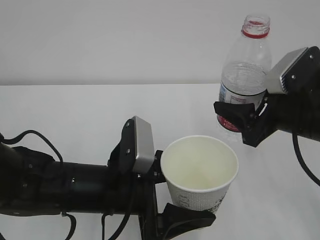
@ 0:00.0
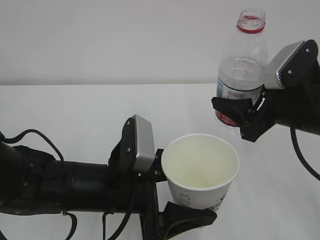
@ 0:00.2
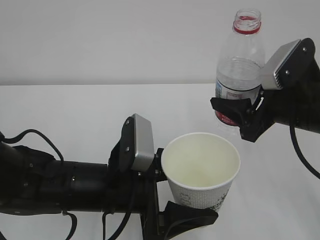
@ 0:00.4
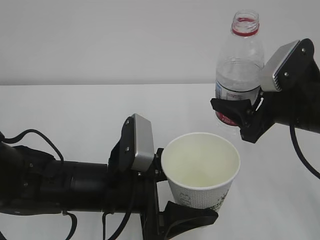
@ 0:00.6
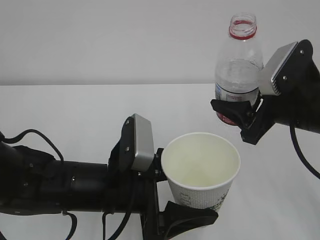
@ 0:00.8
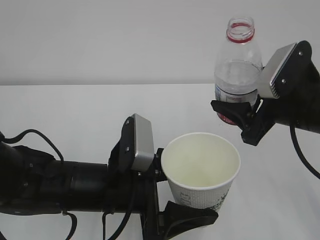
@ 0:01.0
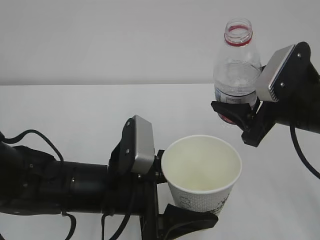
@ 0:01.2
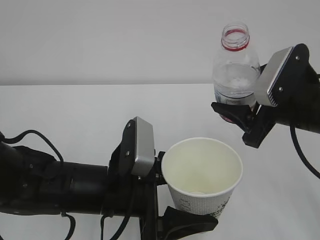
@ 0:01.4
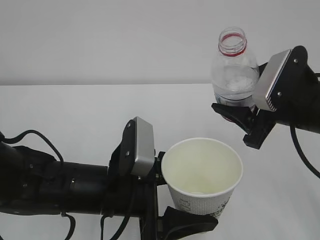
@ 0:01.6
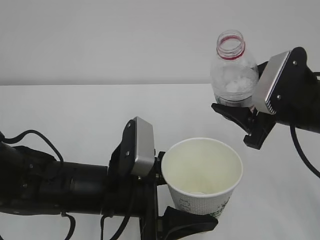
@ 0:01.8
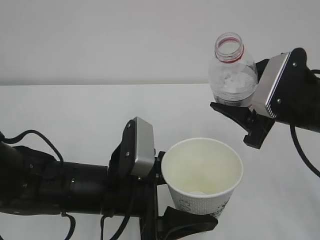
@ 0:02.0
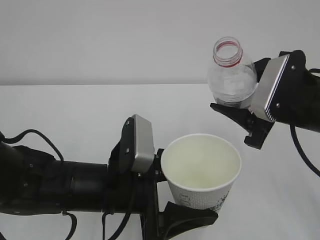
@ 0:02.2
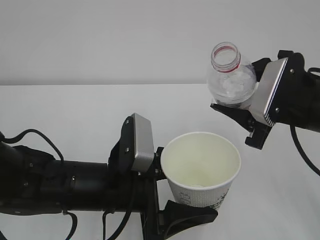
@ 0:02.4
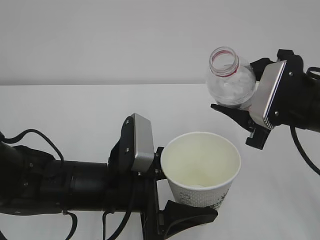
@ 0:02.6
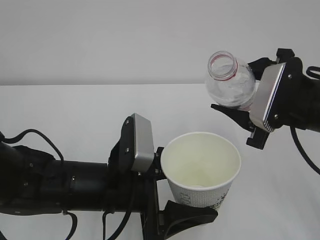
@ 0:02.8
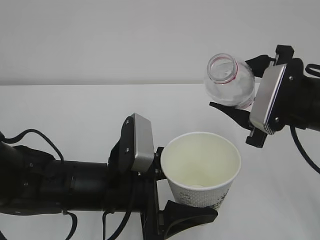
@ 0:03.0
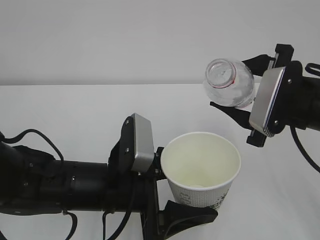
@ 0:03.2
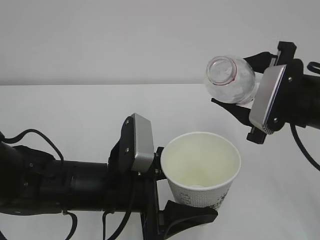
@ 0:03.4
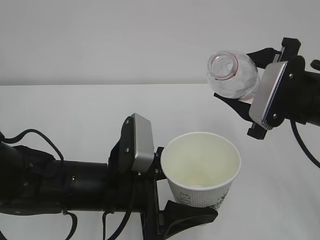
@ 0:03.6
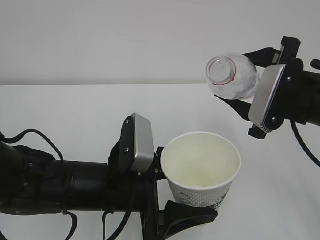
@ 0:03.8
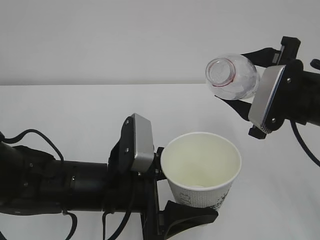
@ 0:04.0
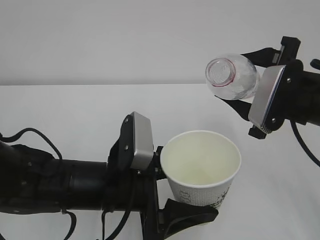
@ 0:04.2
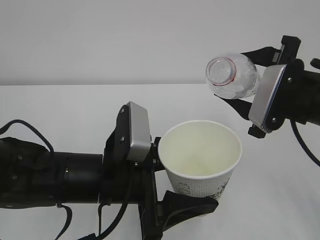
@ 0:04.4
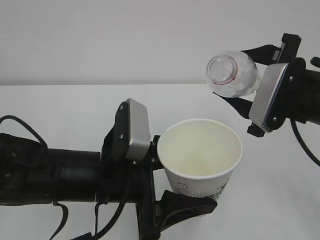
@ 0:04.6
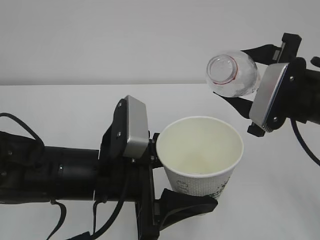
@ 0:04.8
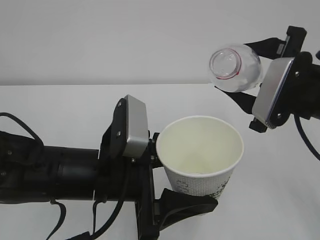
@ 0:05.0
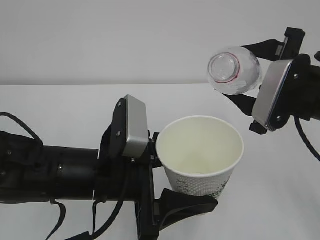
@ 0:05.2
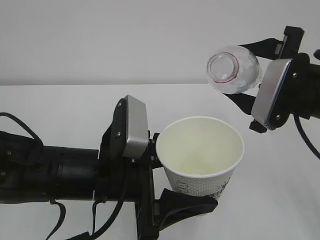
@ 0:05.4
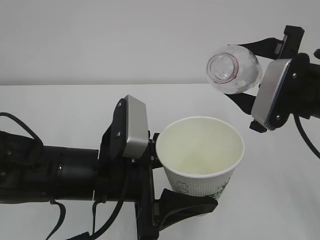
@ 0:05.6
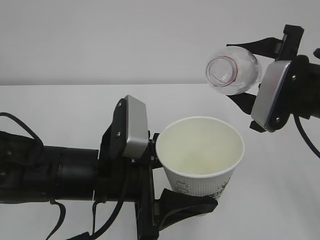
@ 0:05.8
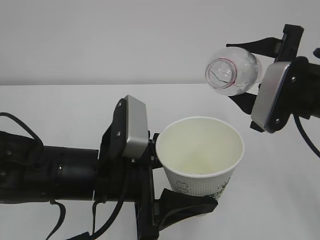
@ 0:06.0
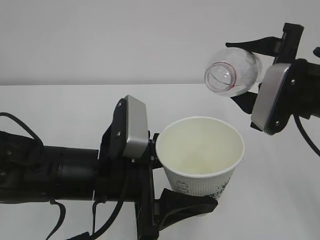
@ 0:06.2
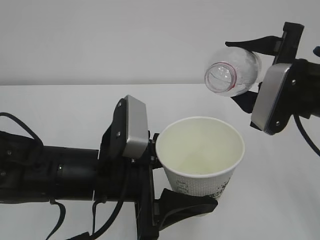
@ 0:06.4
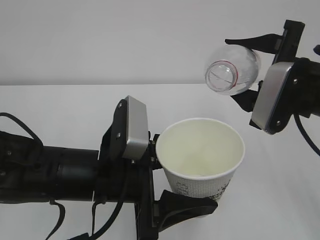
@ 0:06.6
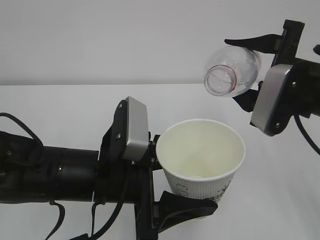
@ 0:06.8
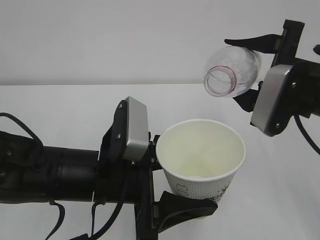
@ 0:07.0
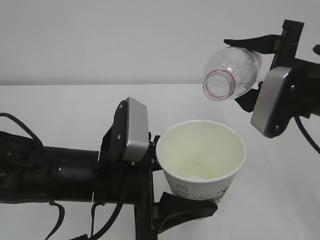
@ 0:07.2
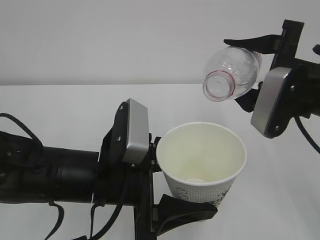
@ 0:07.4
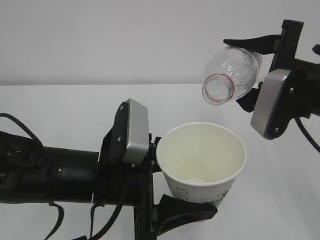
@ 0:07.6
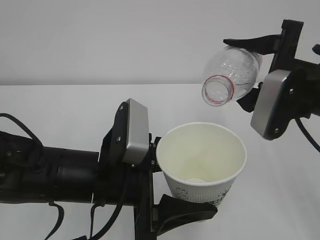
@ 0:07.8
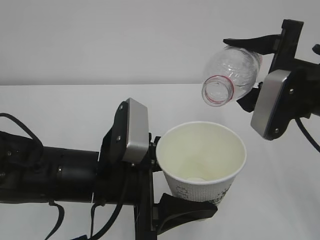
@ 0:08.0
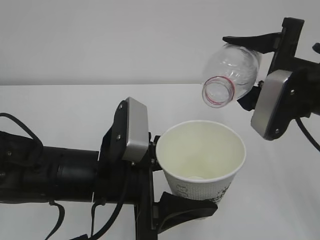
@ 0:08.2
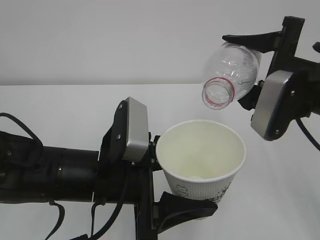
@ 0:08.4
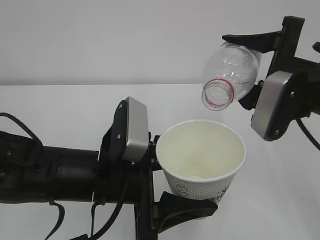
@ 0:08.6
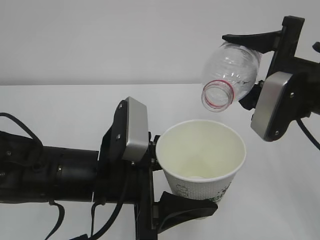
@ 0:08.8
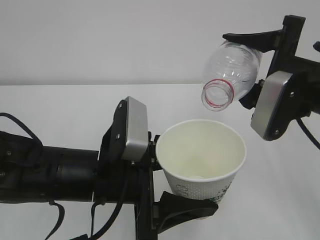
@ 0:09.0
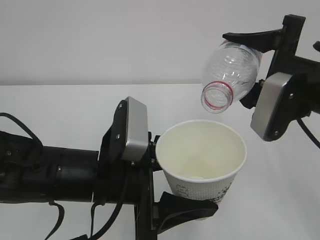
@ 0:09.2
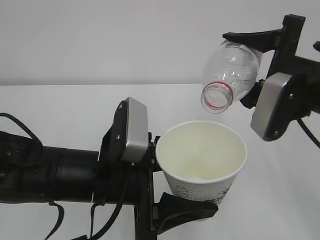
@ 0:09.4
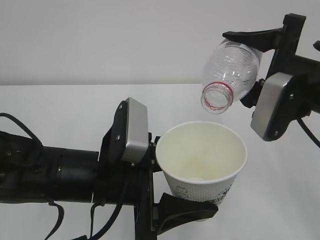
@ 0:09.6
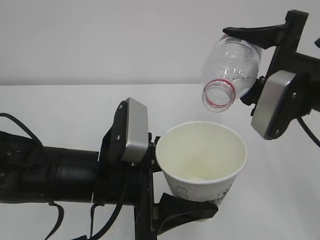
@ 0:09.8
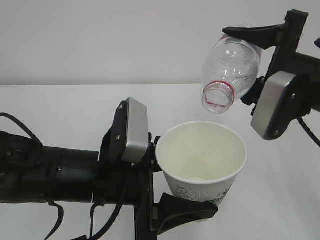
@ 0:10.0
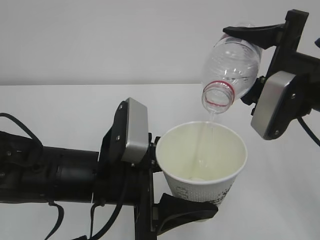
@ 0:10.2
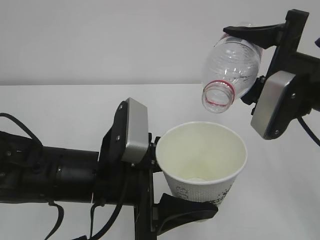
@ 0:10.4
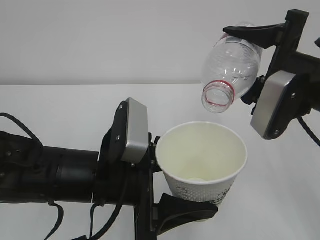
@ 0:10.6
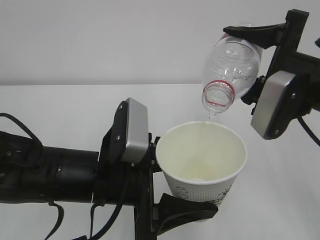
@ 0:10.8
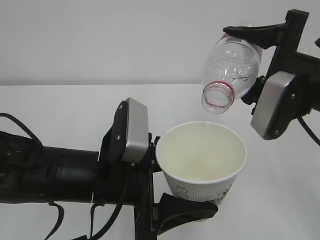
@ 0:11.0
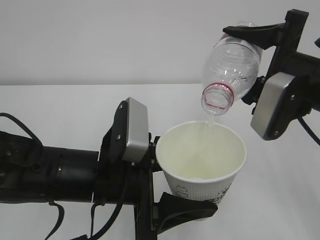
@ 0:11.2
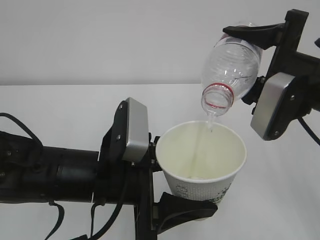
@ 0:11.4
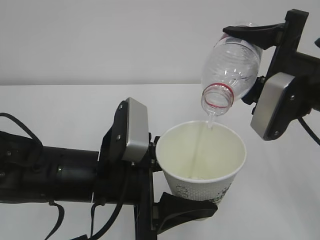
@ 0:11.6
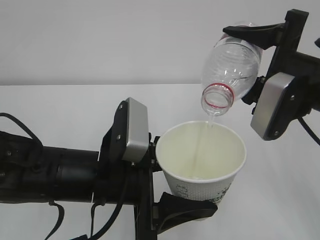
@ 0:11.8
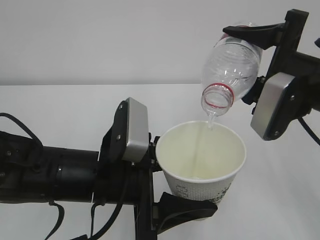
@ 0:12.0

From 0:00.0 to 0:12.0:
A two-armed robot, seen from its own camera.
From 0:03.0 to 0:06.0: There are only small adjustments of the grippers.
From 0:06.0 to 0:09.0: There are only small adjustments of the grippers.
From 0:09.0 to 0:10.4: Neither gripper changes place.
From 0:10.4 to 0:12.0: Both grippers stay put.

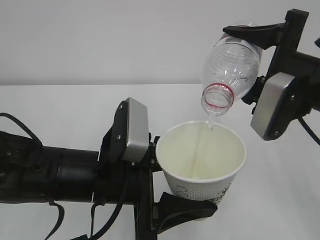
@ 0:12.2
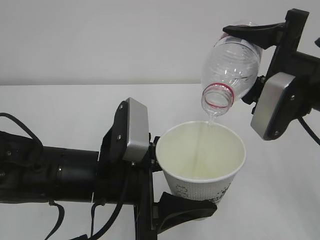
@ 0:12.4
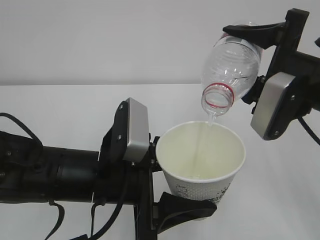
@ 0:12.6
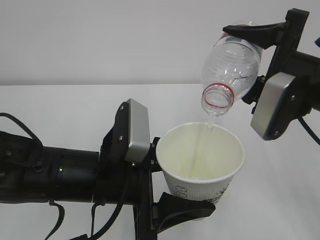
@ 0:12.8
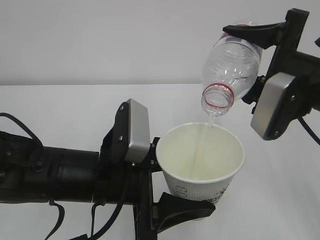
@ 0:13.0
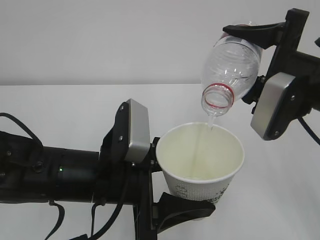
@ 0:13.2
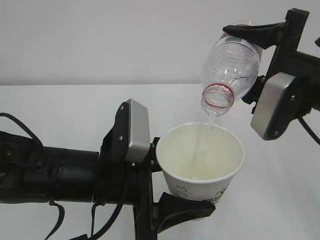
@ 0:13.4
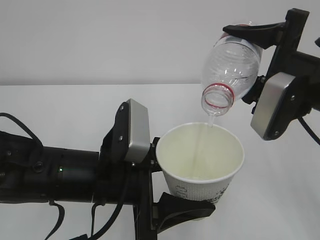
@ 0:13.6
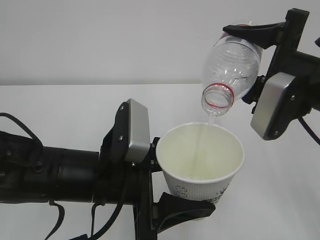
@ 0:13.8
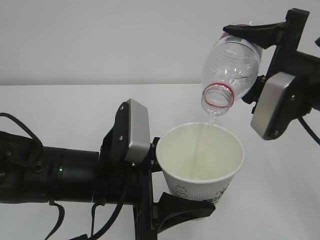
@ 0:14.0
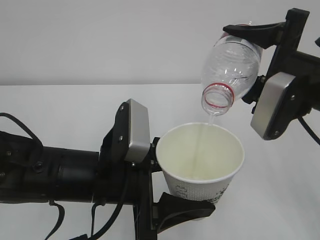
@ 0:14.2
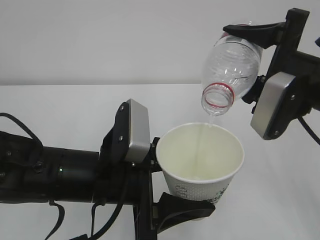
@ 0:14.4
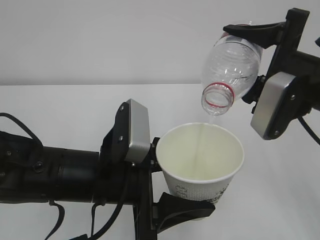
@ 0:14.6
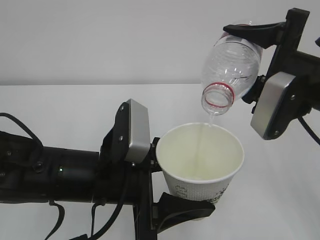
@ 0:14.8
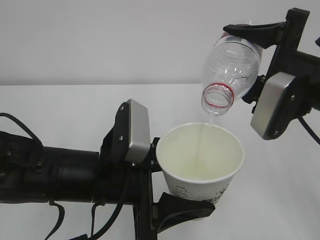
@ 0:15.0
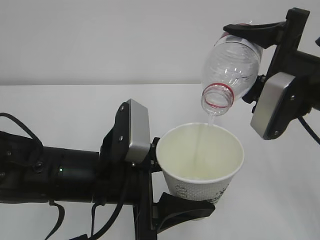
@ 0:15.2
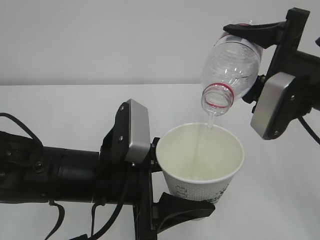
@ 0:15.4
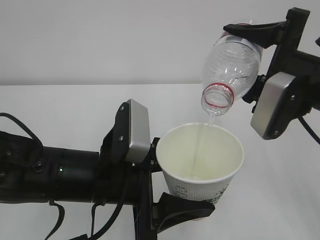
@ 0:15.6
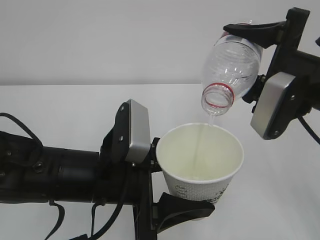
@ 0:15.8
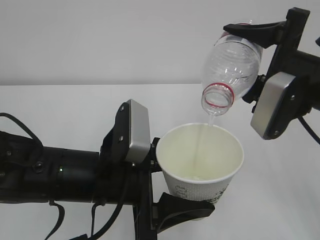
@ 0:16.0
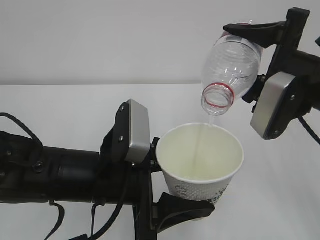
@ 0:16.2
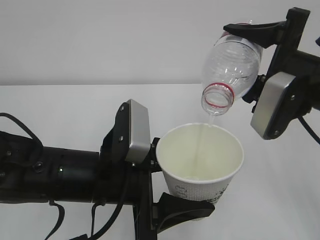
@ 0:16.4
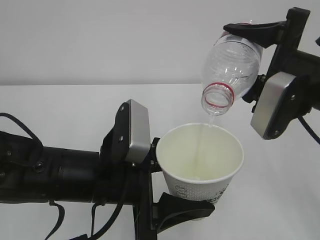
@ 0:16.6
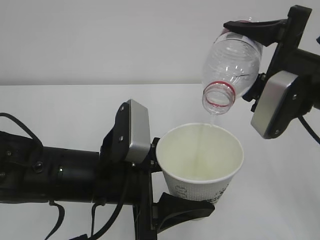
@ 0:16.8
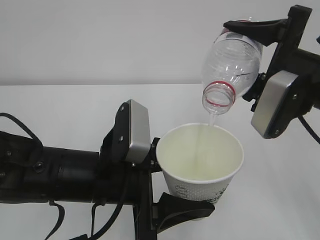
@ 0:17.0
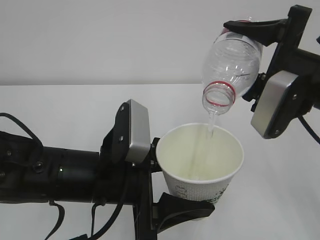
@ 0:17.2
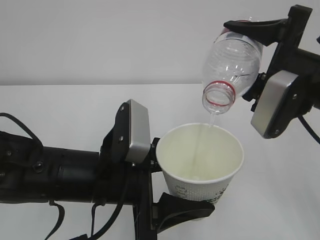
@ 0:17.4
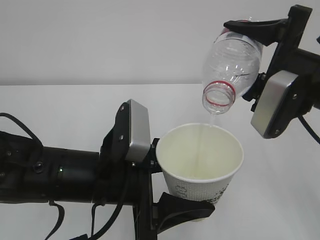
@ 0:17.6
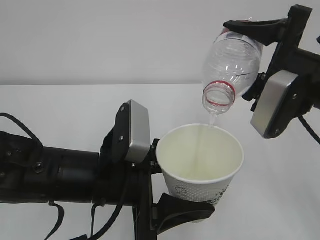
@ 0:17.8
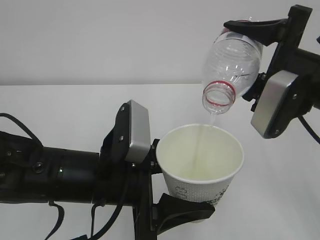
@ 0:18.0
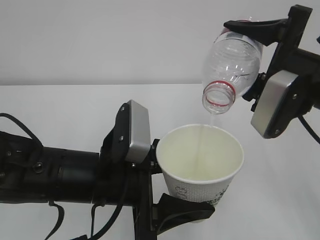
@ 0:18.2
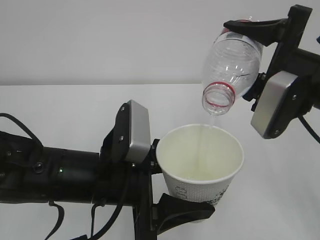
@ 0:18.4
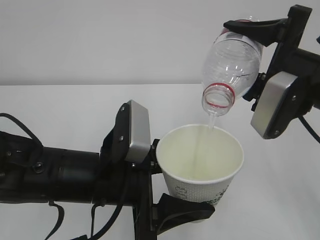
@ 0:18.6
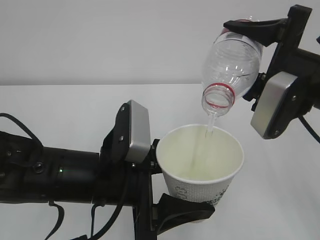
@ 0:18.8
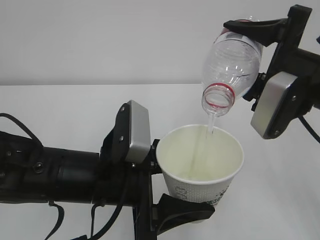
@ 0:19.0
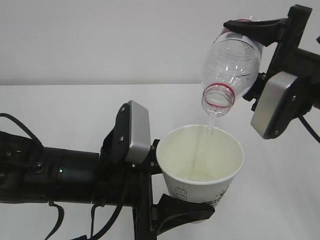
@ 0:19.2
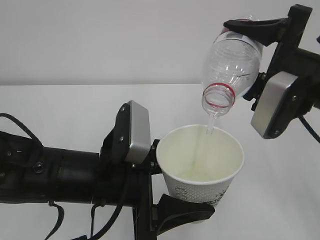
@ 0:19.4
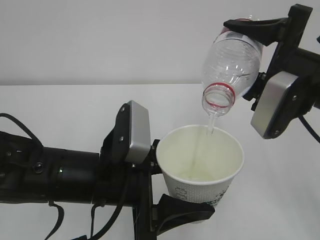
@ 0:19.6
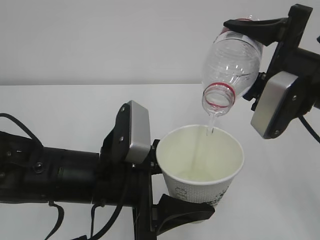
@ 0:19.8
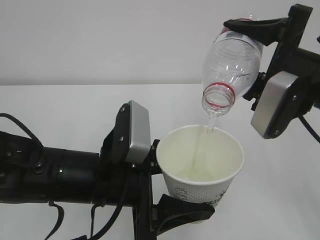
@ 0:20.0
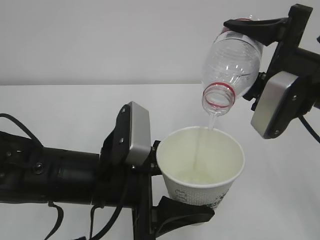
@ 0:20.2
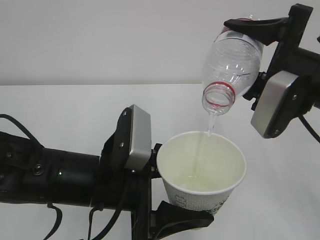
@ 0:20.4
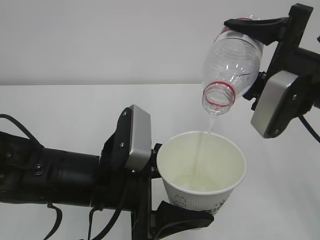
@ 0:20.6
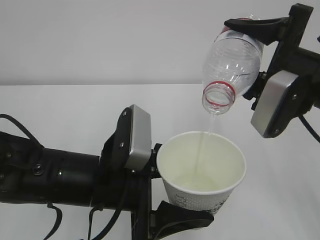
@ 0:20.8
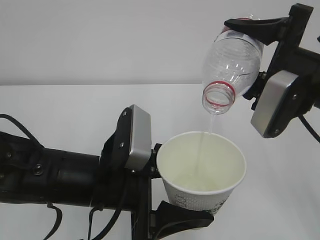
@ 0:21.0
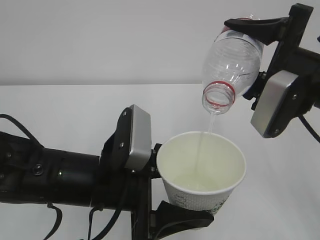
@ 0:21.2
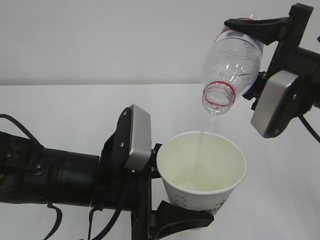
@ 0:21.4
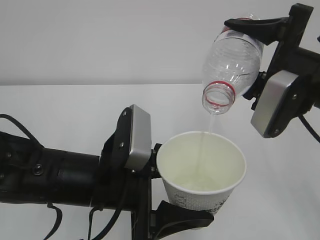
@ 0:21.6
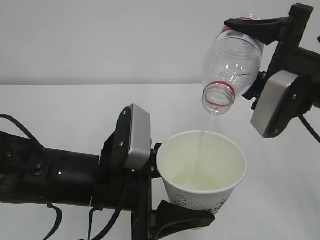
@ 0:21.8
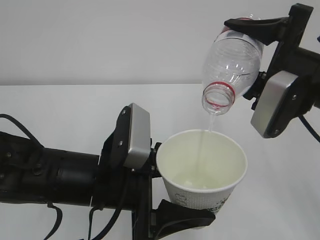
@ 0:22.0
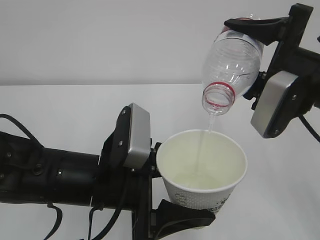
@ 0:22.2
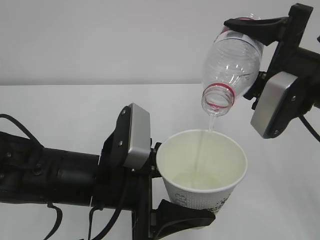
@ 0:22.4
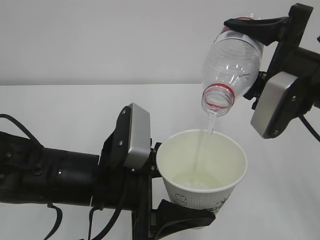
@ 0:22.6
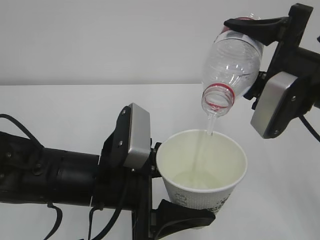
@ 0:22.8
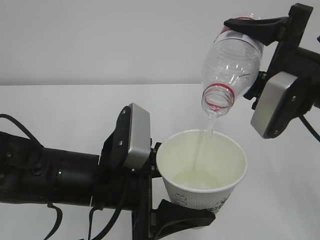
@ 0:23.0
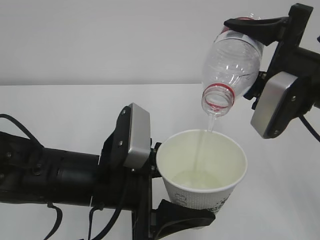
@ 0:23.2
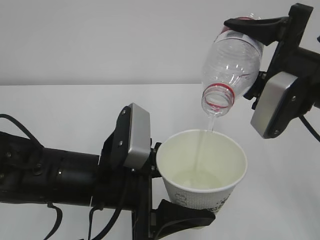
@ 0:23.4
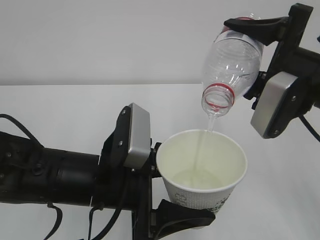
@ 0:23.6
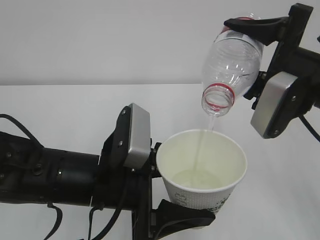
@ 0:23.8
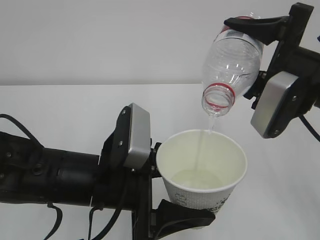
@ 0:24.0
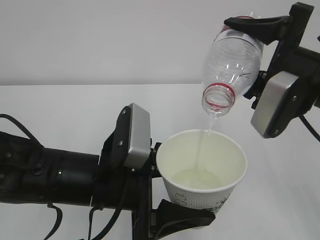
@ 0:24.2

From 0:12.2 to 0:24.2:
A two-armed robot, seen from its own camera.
From 0:12.2 to 0:24.2: Neither gripper changes place.
